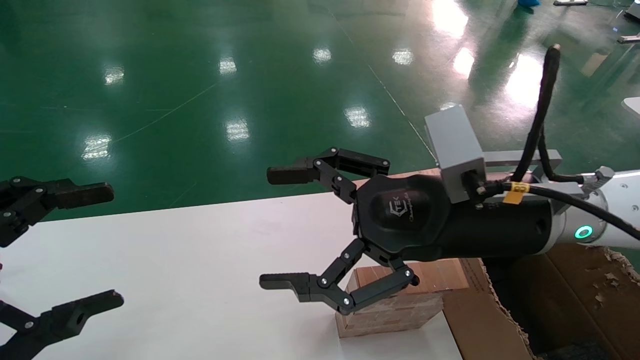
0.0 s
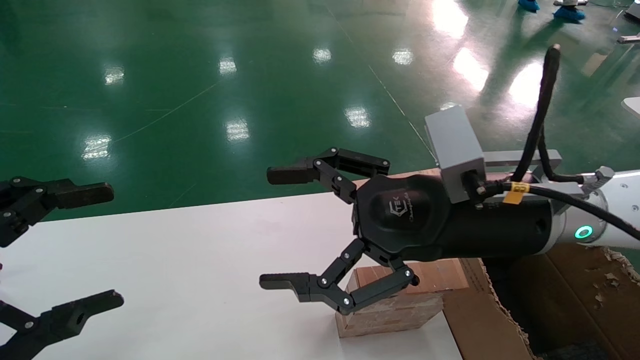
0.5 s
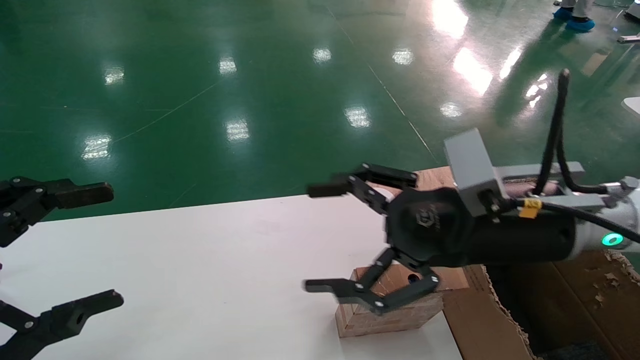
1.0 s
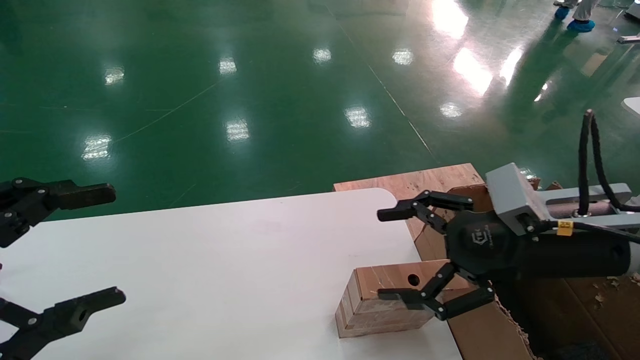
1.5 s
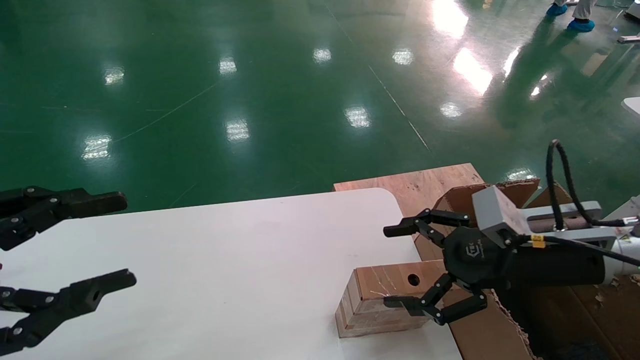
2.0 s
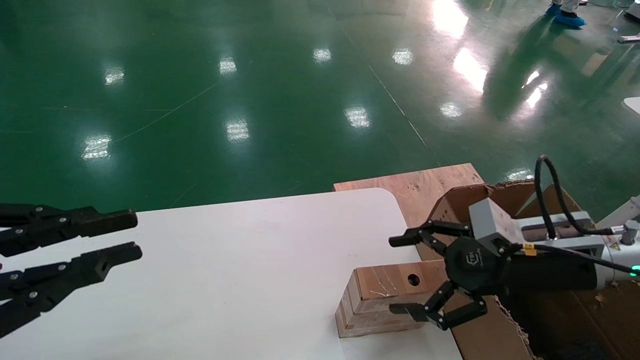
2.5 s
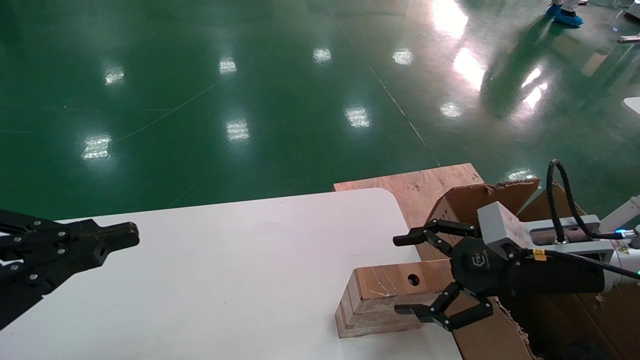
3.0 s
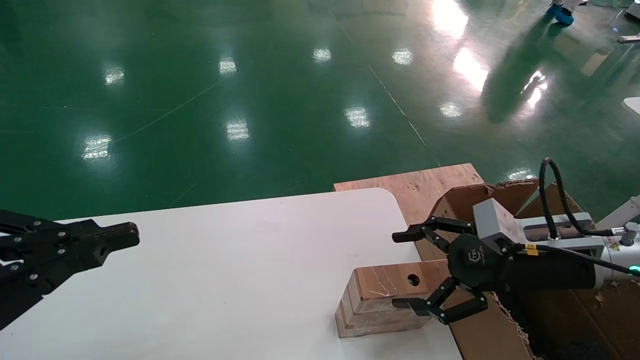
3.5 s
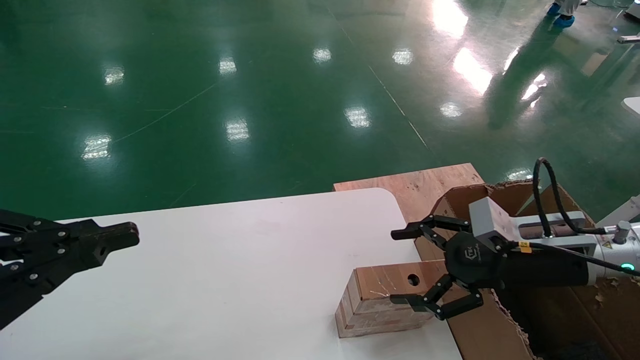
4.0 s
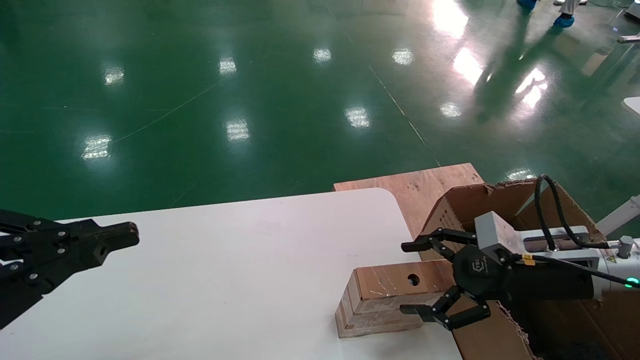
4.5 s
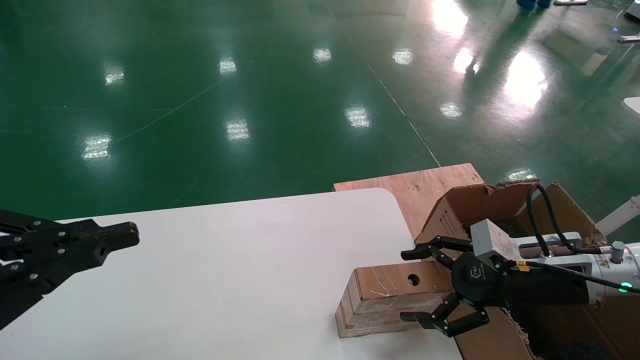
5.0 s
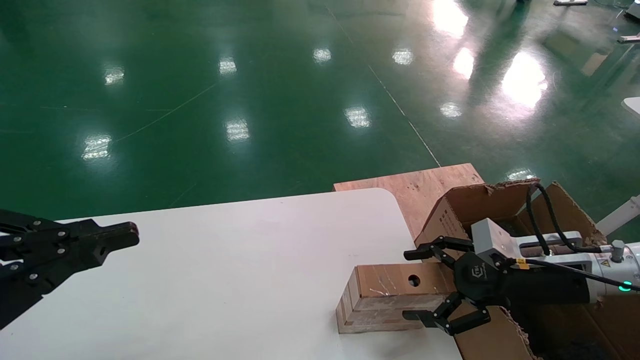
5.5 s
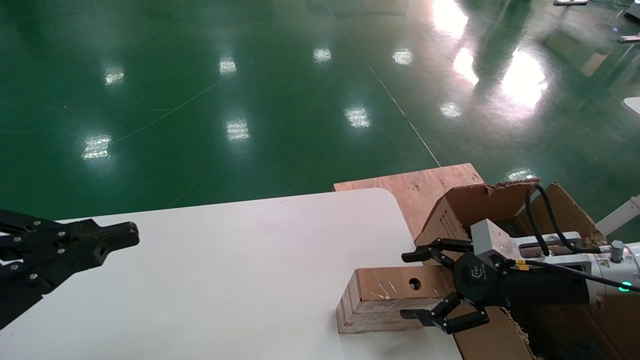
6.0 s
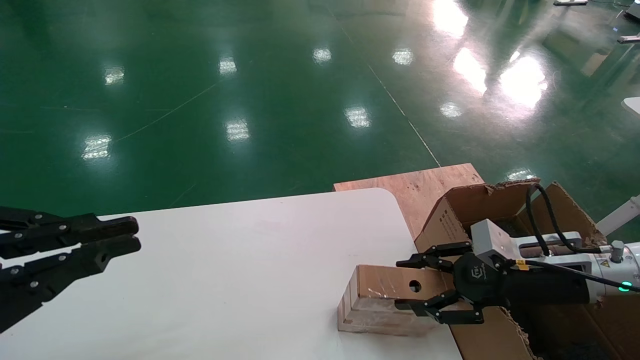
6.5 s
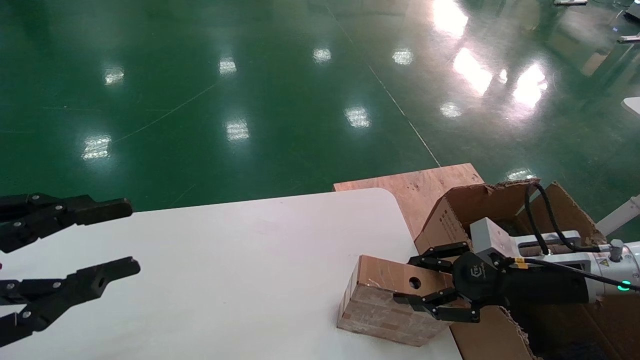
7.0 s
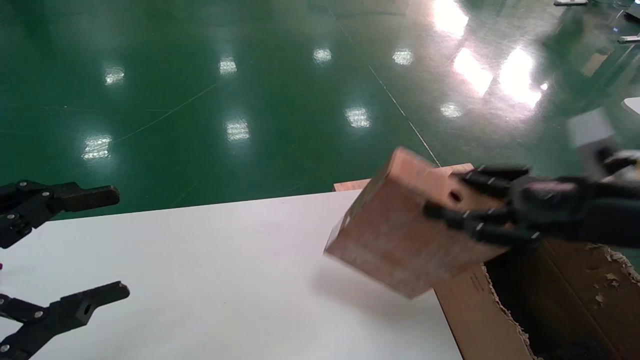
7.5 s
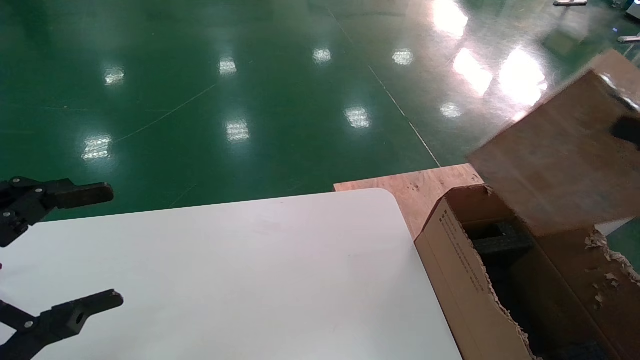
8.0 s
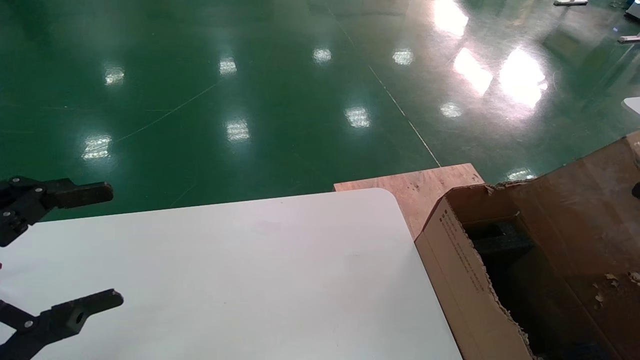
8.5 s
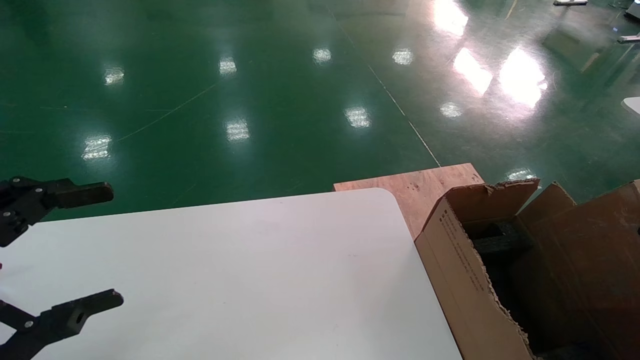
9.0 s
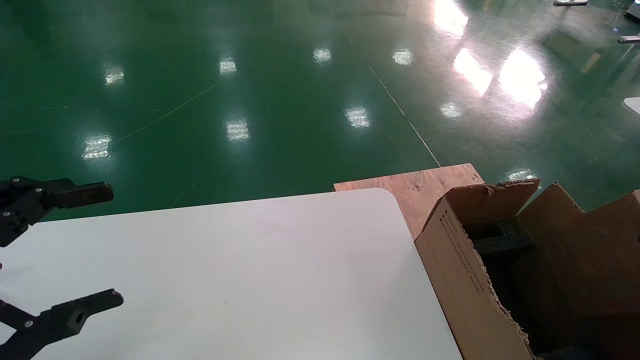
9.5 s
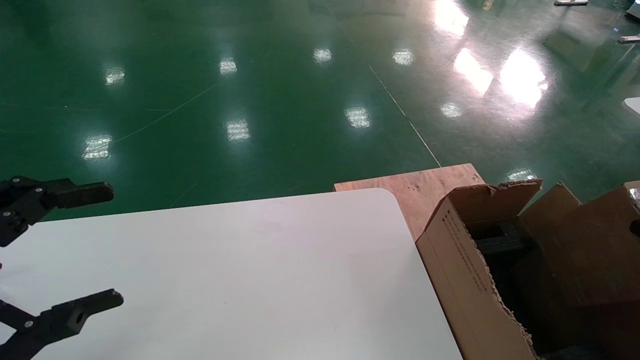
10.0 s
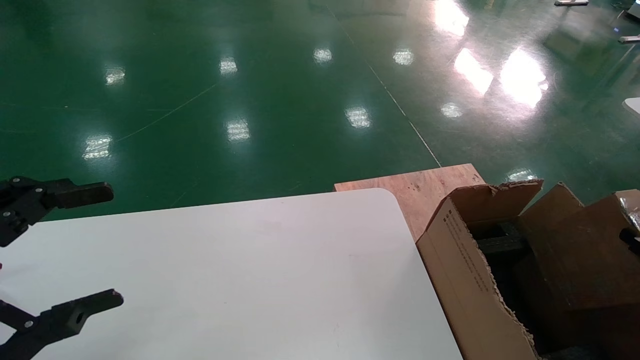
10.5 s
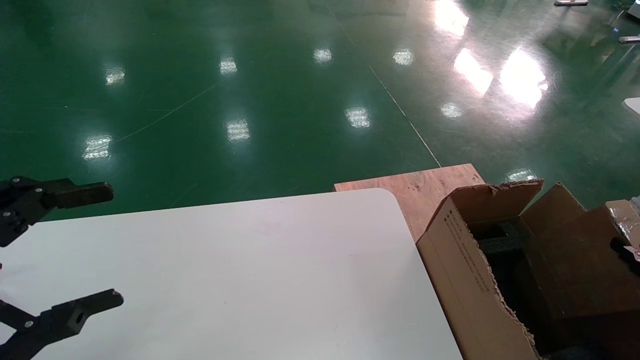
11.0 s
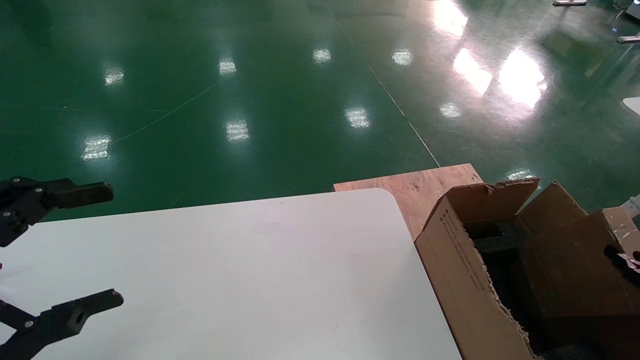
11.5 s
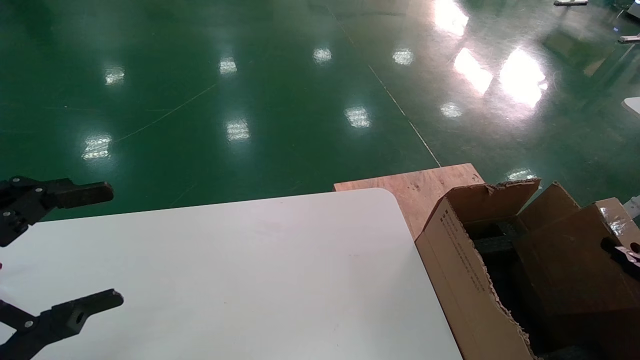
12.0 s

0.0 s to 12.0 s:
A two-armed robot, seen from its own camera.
Task of the whole recording: put the box on the table into the big box.
Step, 1.5 to 6.5 s: Pick up the mouse and the power cord paper box.
0.0 to 2.0 s: The right gripper moves to the right and downward, roughly 15 cm.
2.0 to 4.0 s: The left gripper closes its fingers.
4.0 to 6.0 s: There are only small adjustments of the grippers.
6.0 to 8.0 s: The right gripper goes approximately 25 cm backward, upward and to the right, and closes, while the left gripper opens up.
8.0 to 10.0 s: The right gripper moves downward and to the right, roughly 20 cm.
10.0 to 12.0 s: The grippers make only small movements.

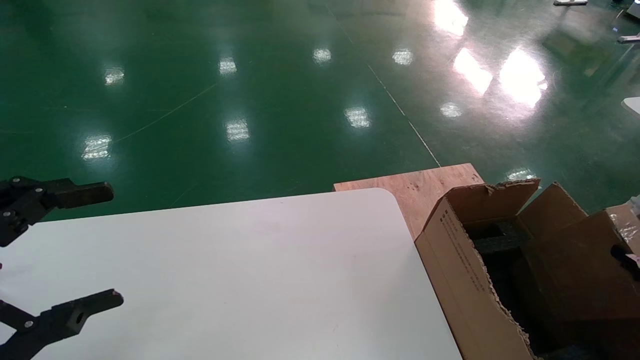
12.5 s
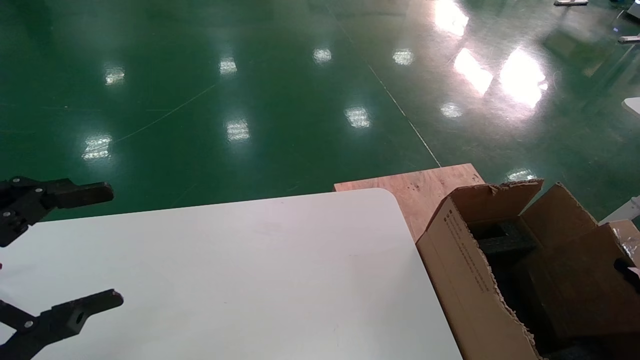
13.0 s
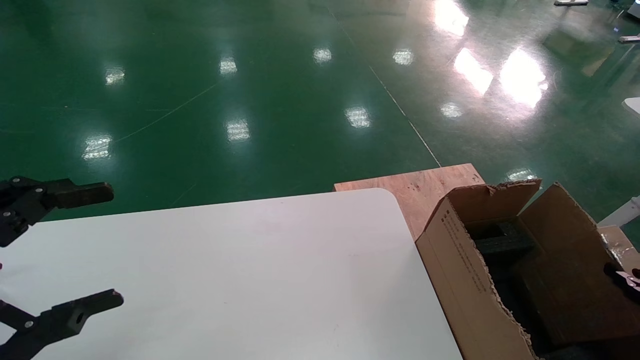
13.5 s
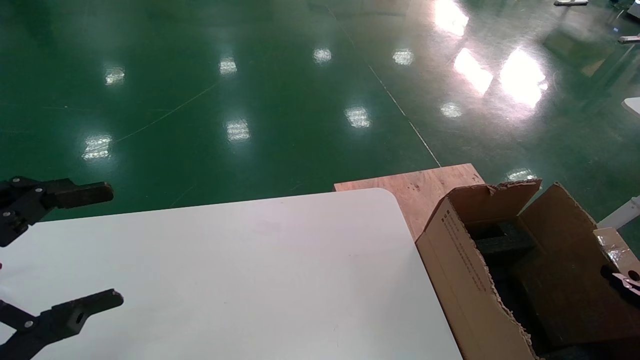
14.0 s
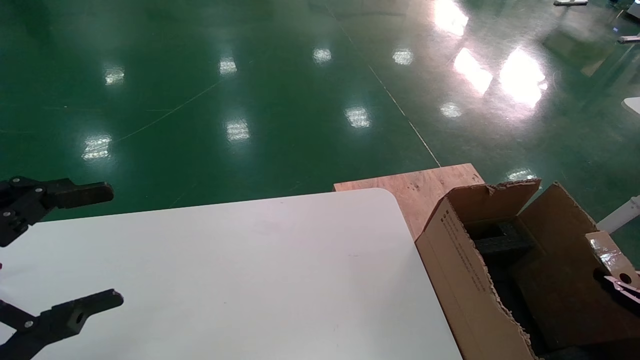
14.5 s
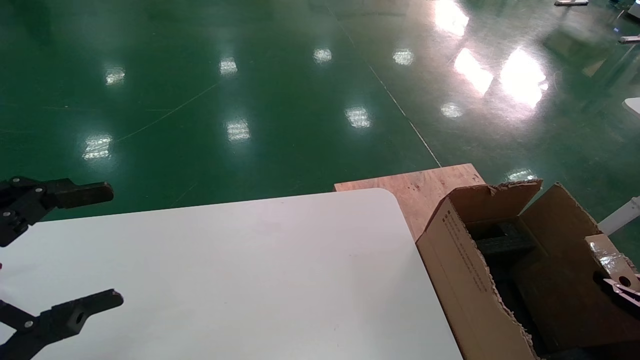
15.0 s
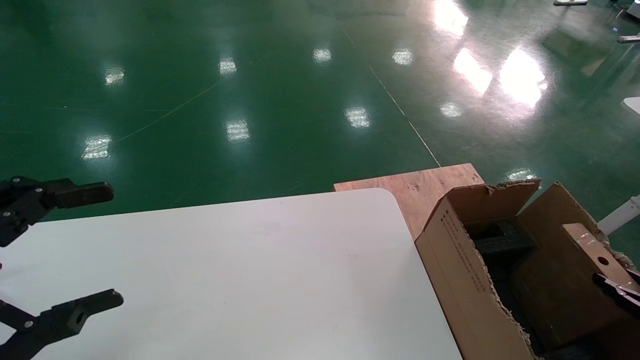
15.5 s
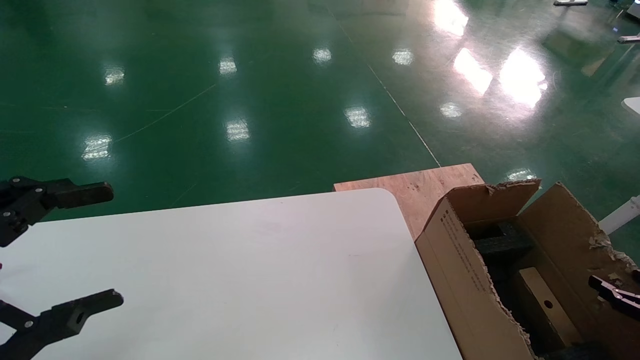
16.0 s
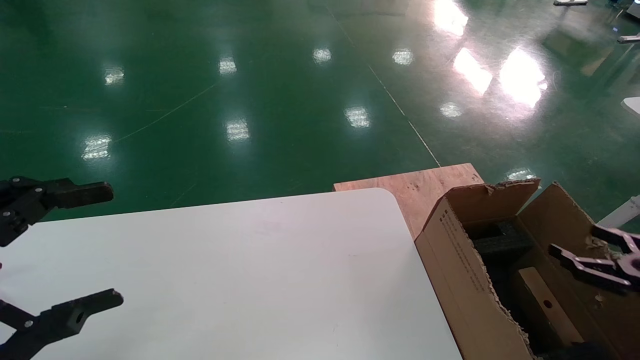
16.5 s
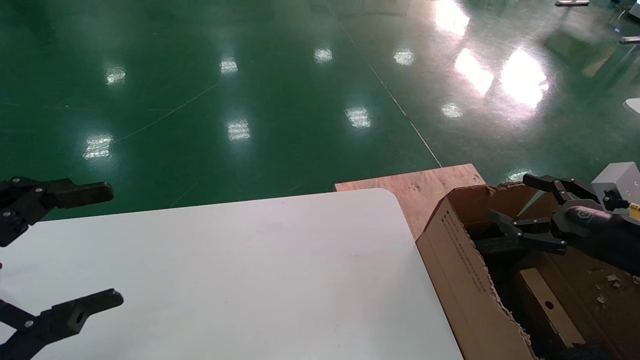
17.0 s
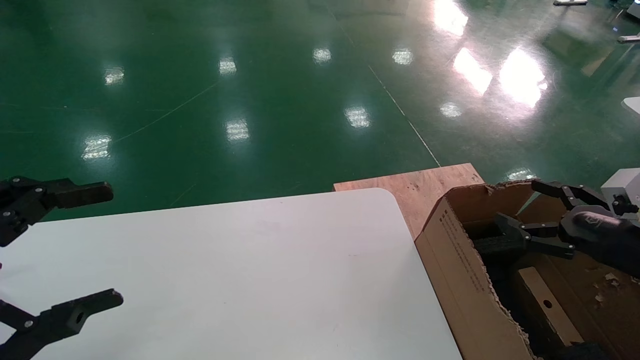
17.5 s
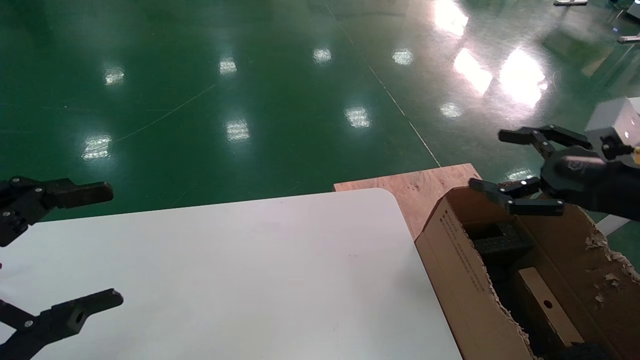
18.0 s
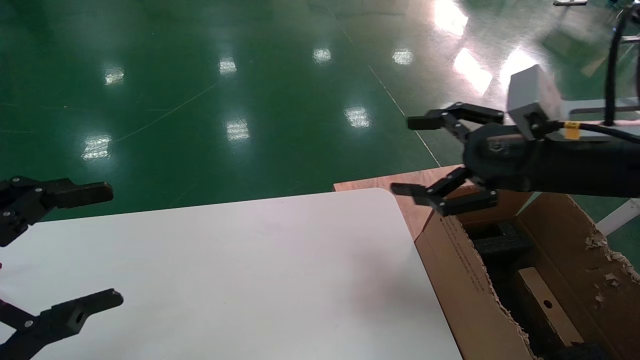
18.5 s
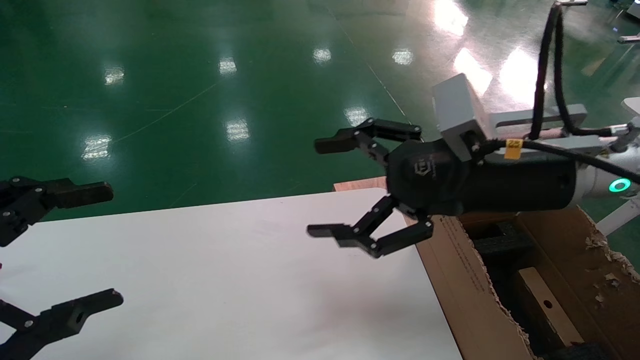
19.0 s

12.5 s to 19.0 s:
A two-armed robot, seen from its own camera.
Task of the whole recording: put the box on the table into the big box.
Step, 12.5 to 15.5 s: Place the mouse and the power cord paper box into the container.
12.5 to 14.5 s: The grippers make only small movements.
14.5 to 17.0 s: The right gripper shifts roughly 20 cm upward, to the left and forward, and opens up.
17.0 to 19.0 s: The right gripper goes roughly 25 cm to the left and upward.
